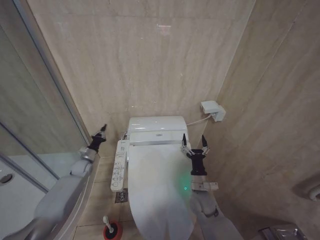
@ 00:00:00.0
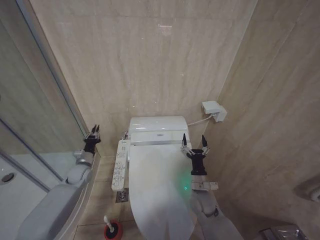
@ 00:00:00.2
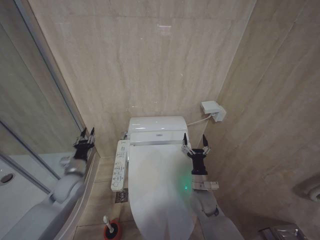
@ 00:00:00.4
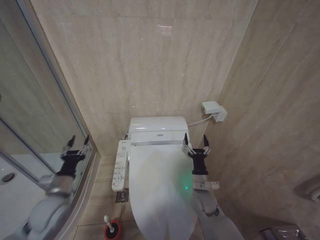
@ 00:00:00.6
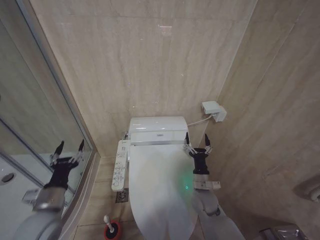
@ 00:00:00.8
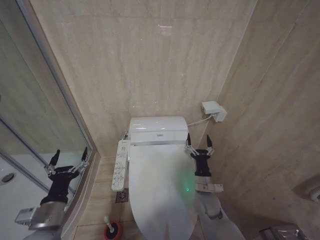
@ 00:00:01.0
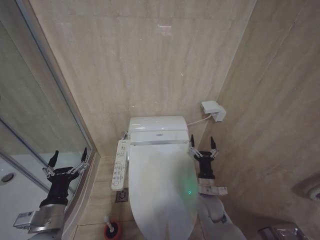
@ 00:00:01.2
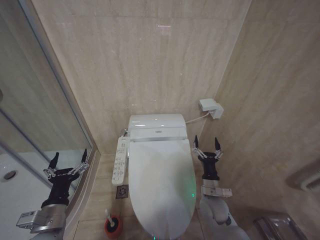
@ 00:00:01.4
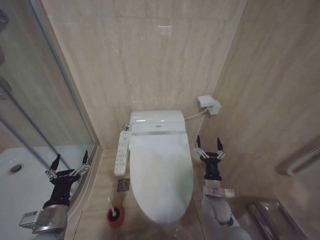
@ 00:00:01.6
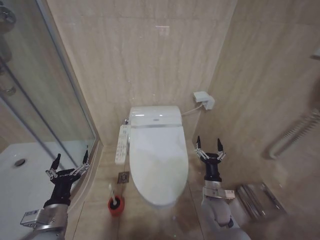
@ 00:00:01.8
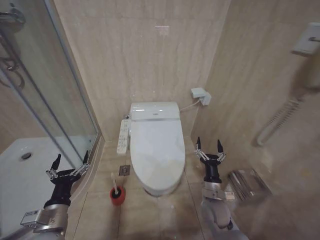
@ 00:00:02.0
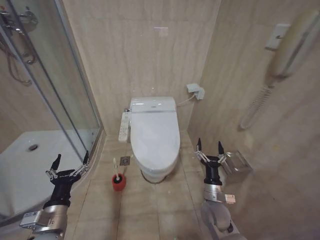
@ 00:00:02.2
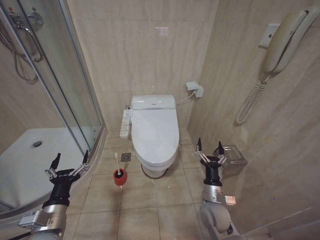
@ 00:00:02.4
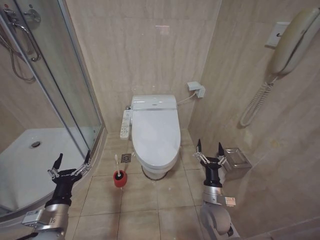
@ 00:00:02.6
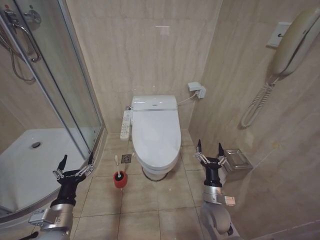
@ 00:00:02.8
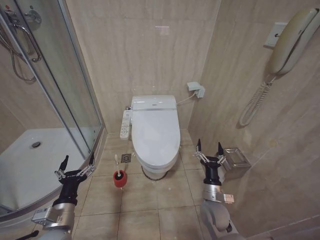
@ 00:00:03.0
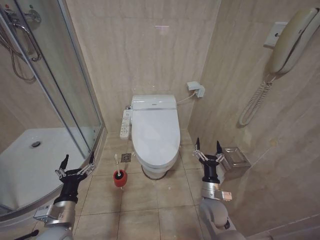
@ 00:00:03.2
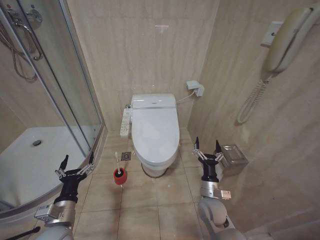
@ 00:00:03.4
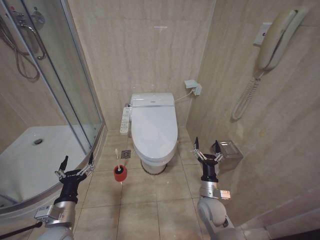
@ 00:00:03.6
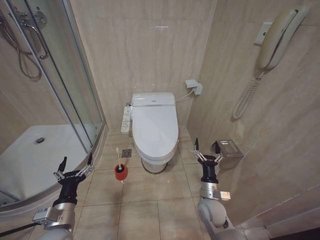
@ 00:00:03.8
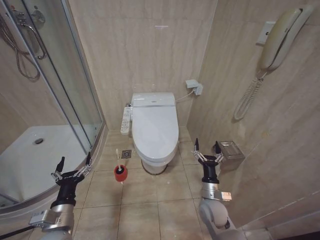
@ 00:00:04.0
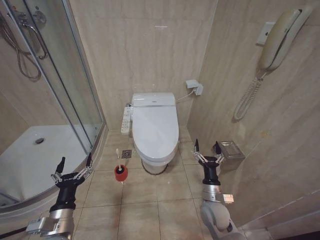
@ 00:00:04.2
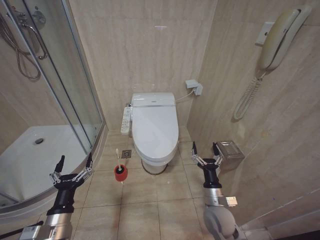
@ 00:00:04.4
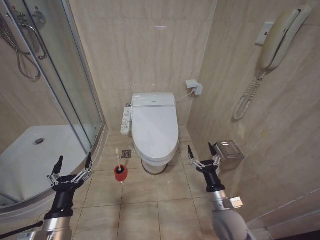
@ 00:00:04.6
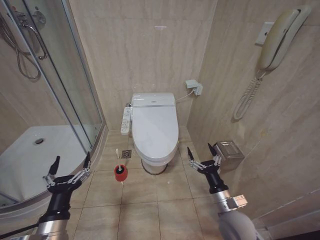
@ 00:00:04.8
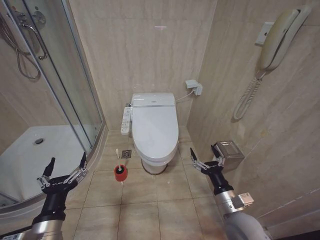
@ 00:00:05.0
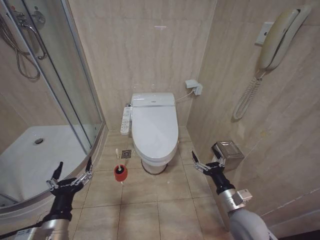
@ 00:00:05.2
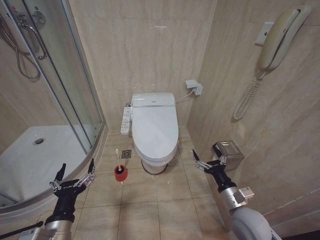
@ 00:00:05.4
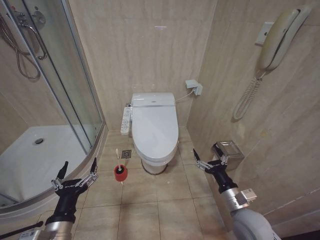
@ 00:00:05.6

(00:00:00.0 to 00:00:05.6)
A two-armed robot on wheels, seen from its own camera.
Task of the whole recording: Open the toilet lid, clean the toilet bowl with a toilet brush, close the toilet lid, and flush.
00:00:00.0 - 00:00:01.4: The left gripper travels backward by roughly 35 cm, and opens.
00:00:02.8 - 00:00:04.2: The grippers move only a little.
00:00:04.2 - 00:00:05.6: The left gripper shifts by approximately 5 cm, while the right gripper goes about 15 cm upward, backward and to the right.
